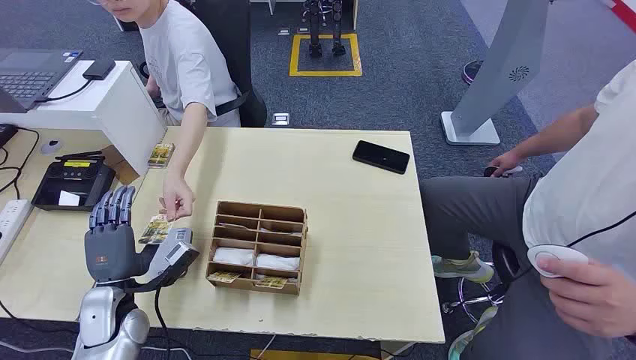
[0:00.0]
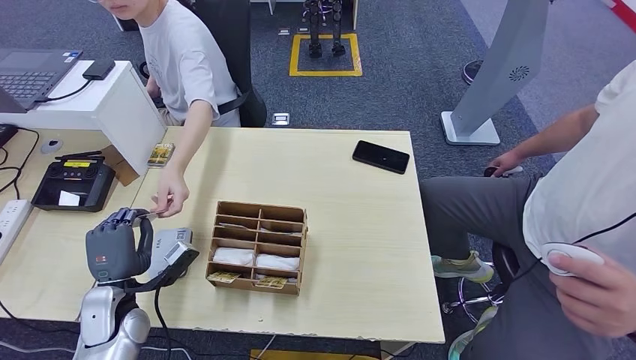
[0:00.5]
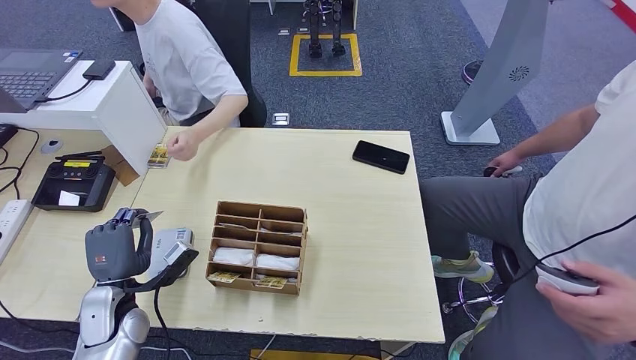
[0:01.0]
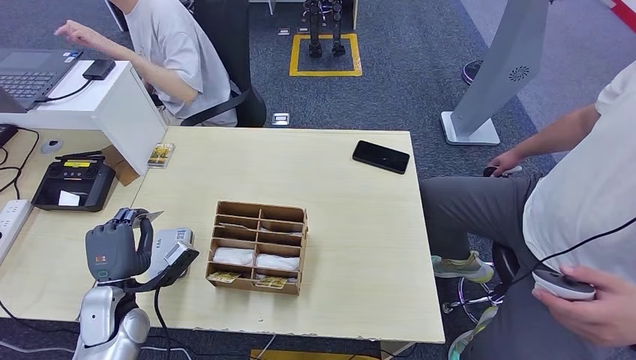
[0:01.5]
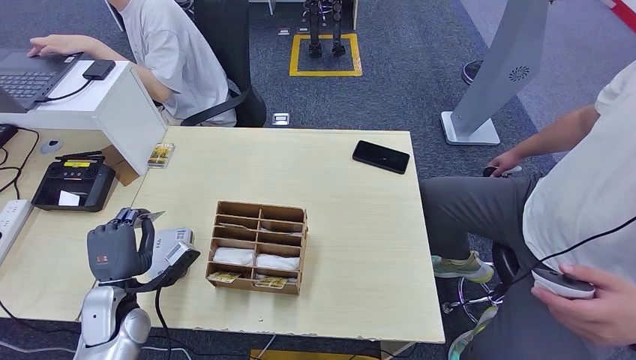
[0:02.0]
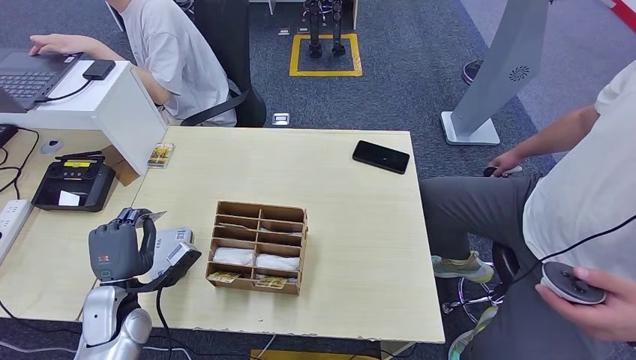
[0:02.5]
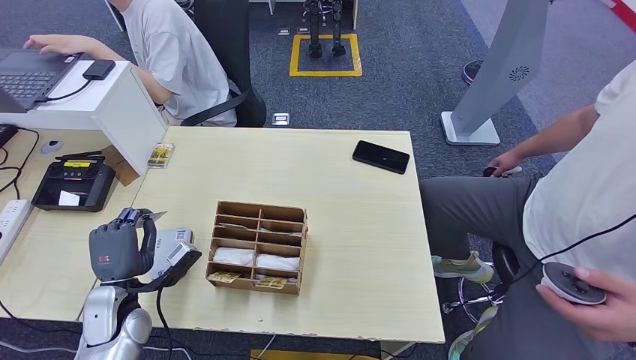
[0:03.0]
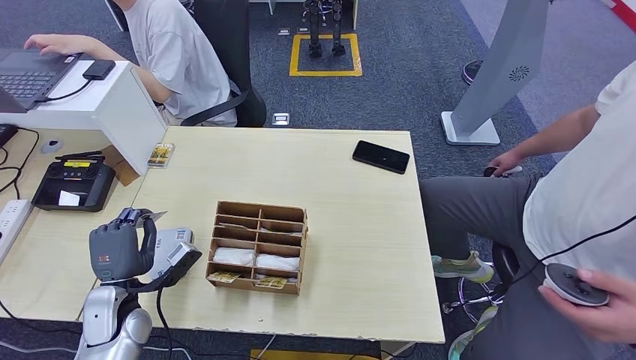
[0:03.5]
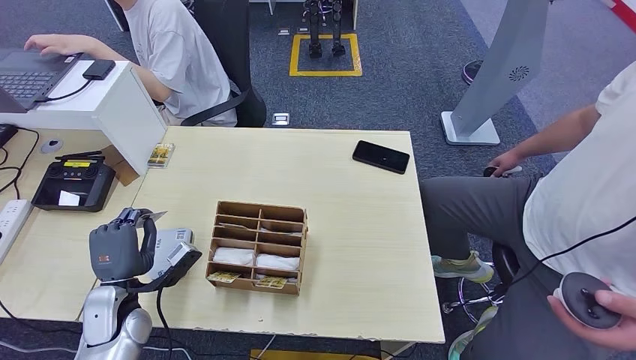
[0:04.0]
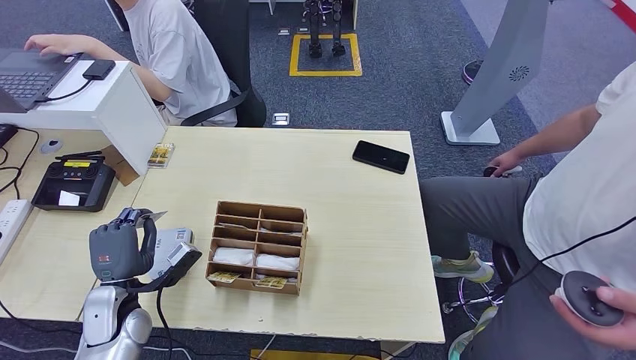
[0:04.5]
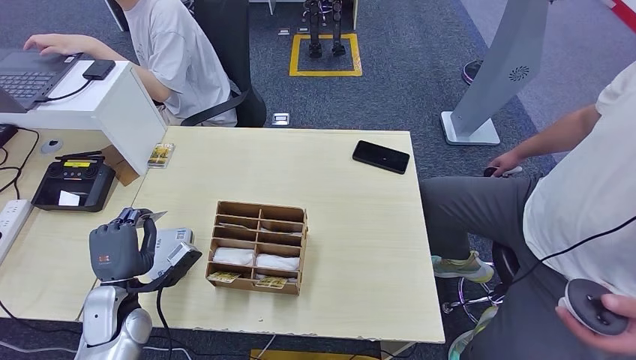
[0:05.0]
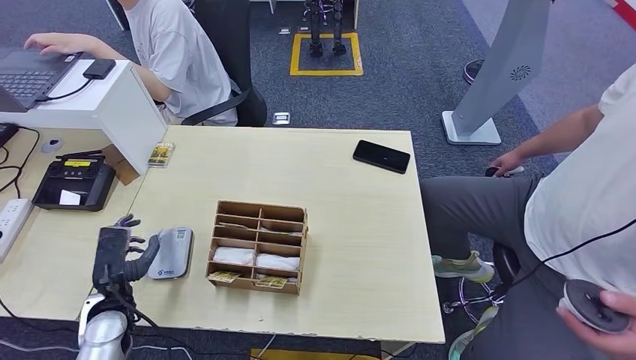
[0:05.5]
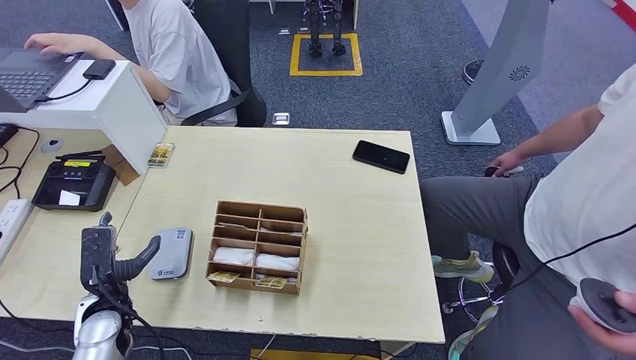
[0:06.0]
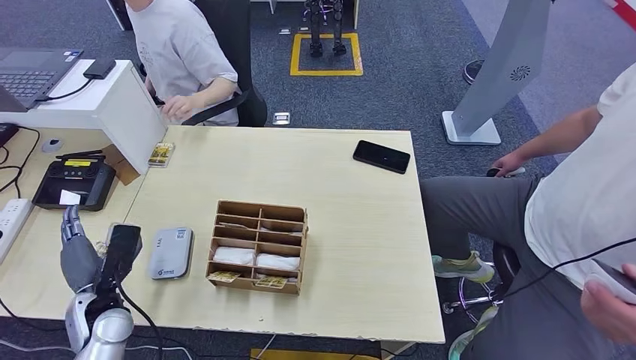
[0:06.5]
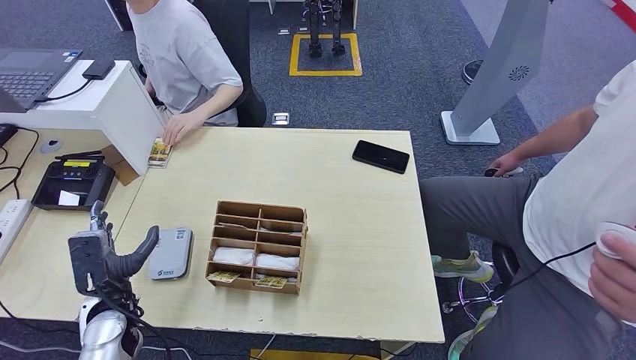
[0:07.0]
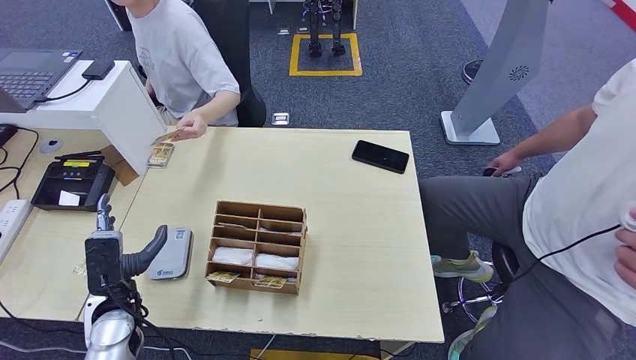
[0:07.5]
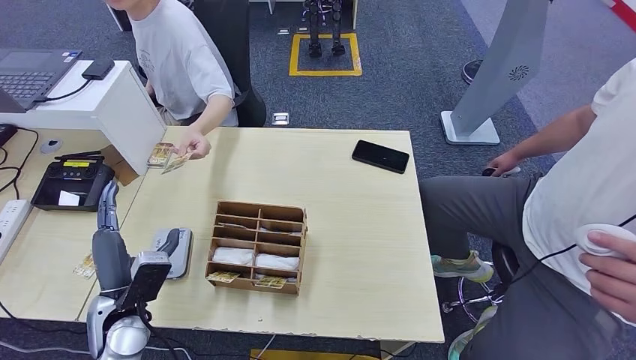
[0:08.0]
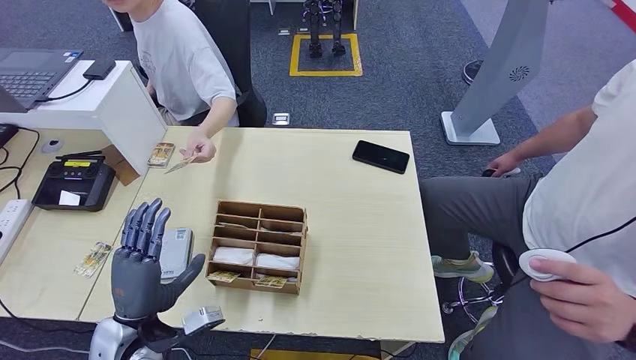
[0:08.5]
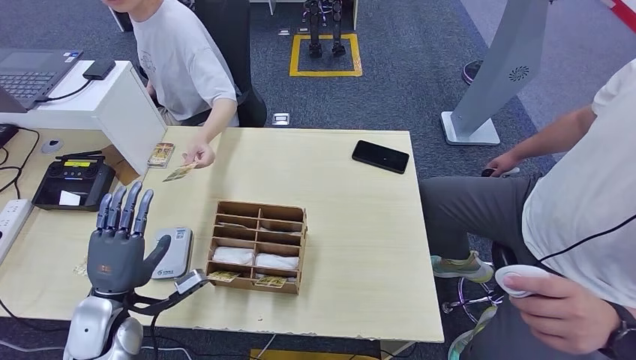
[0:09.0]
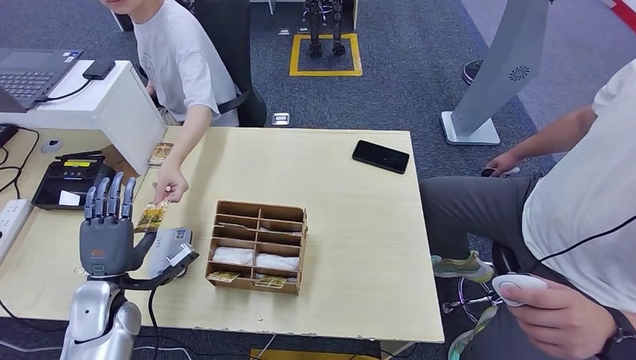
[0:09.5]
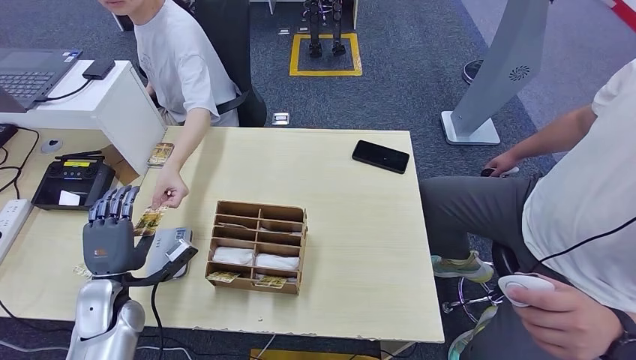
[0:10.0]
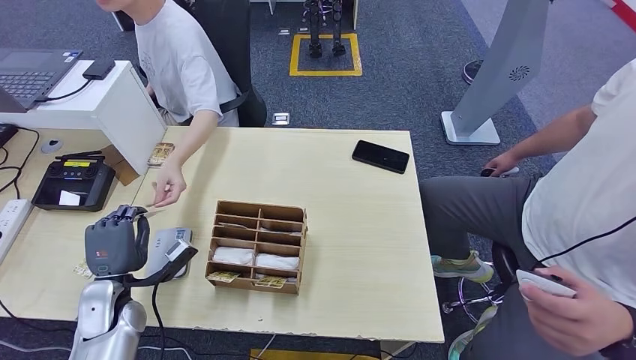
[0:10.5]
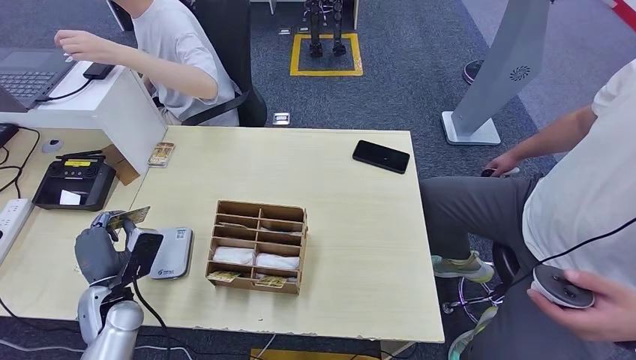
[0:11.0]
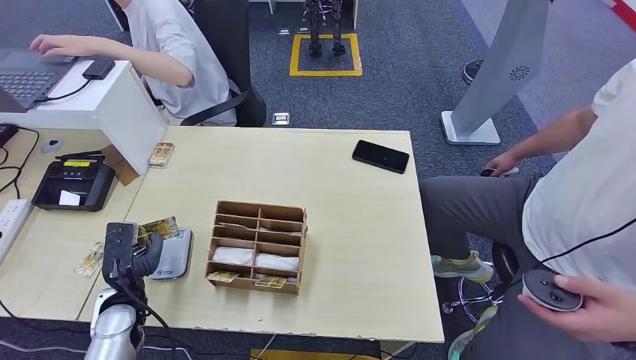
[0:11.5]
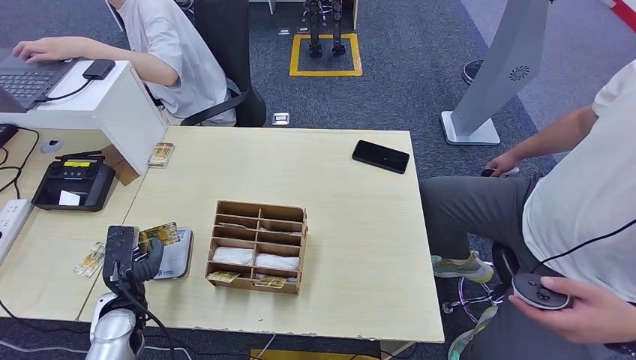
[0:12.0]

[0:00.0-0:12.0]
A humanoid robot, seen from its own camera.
Step, 0:00.0 to 0:01.0: Take the ID card from the person's hand.
0:02.0 to 0:04.0: Neither hand changes place.
0:06.0 to 0:08.0: The left hand heads to the right, covering some 5 cm.
0:08.0 to 0:10.0: The left hand heads to the left, covering some 5 cm.

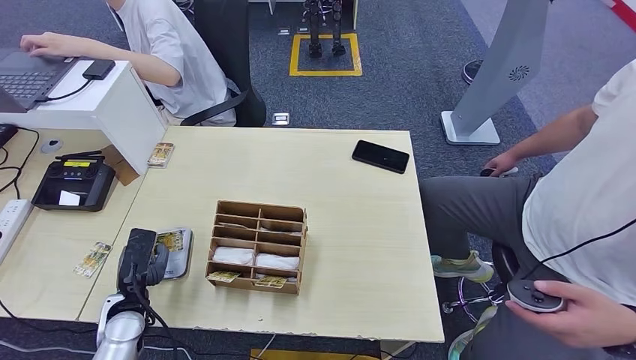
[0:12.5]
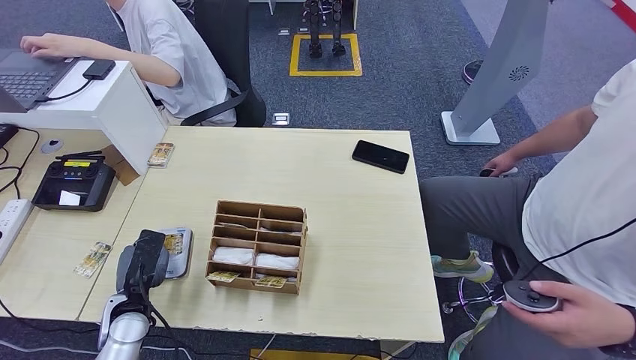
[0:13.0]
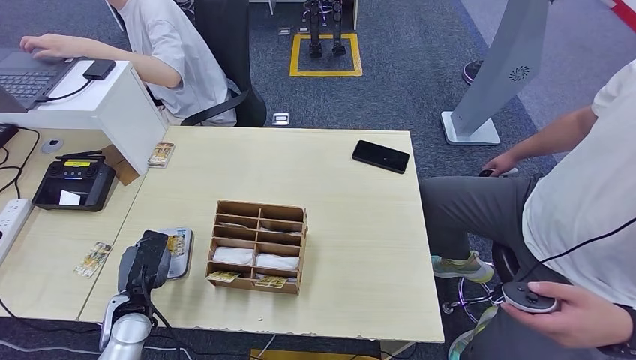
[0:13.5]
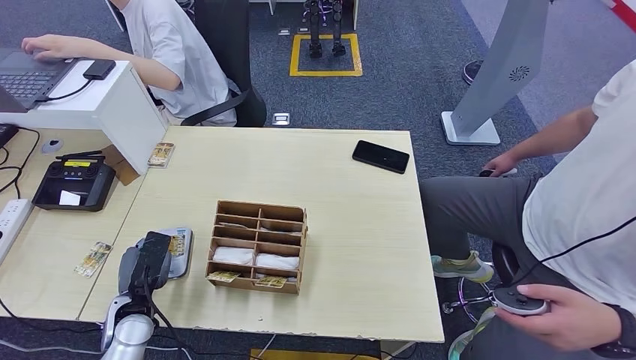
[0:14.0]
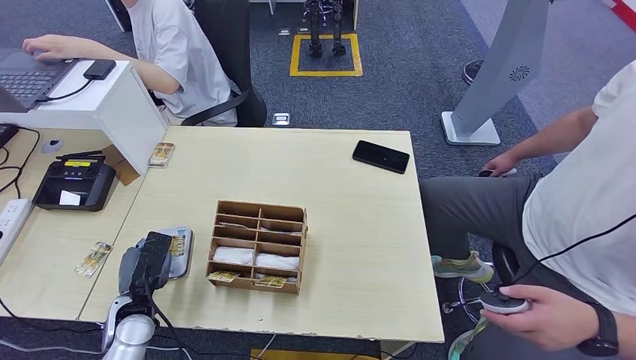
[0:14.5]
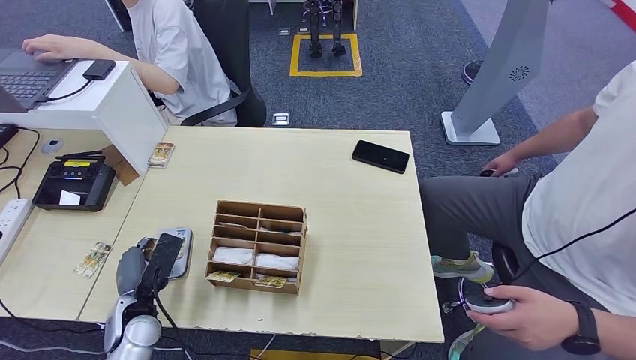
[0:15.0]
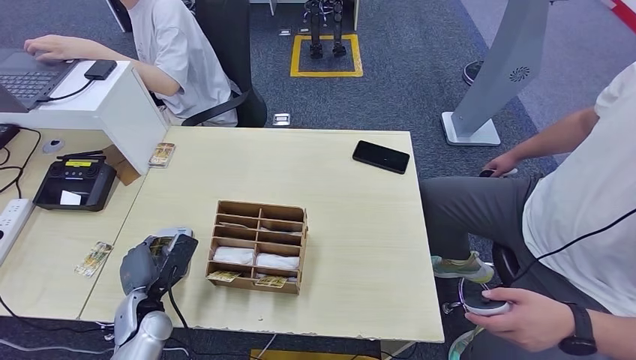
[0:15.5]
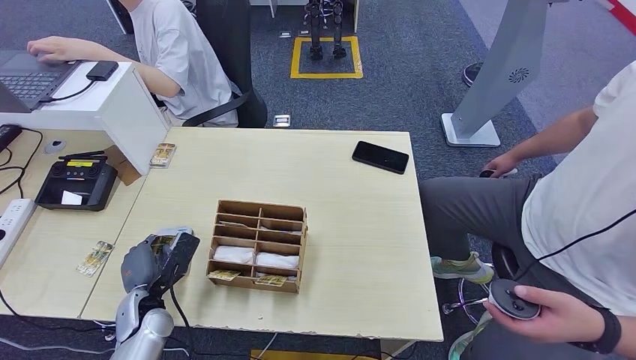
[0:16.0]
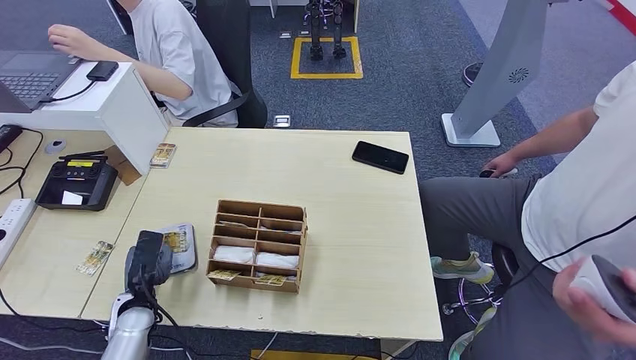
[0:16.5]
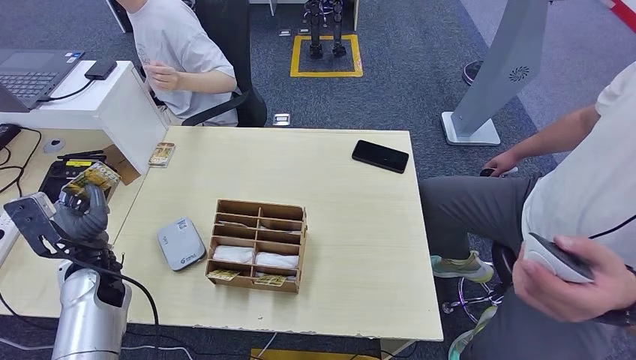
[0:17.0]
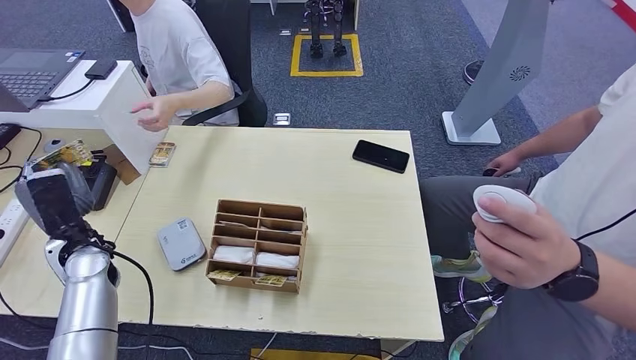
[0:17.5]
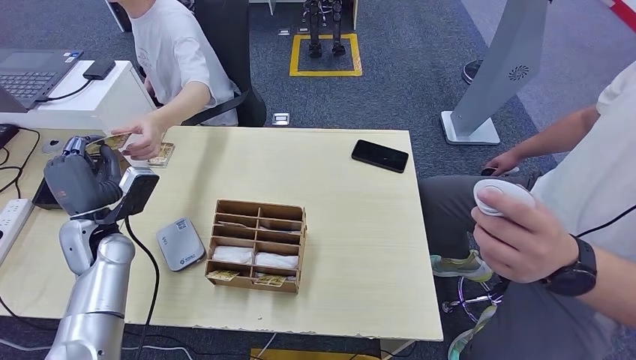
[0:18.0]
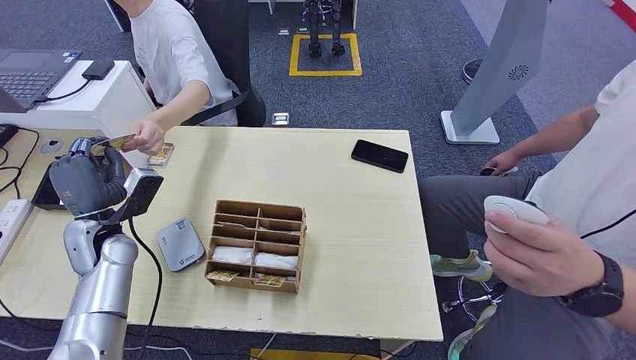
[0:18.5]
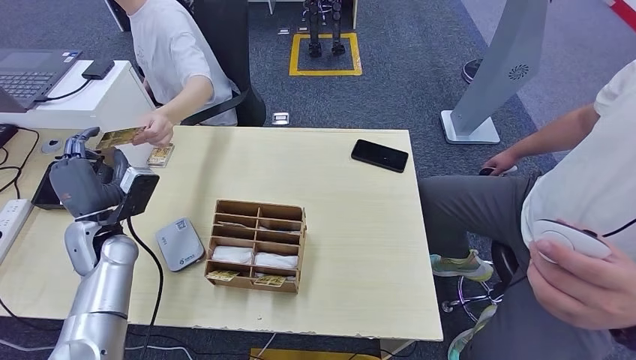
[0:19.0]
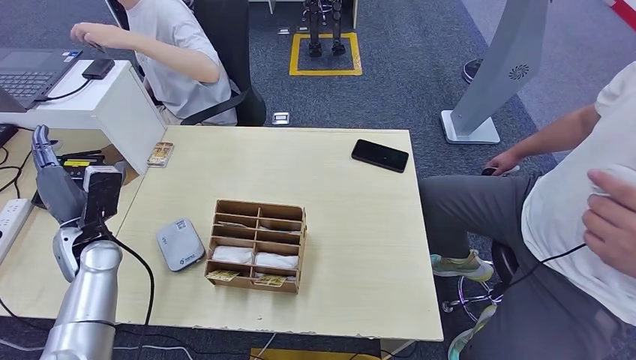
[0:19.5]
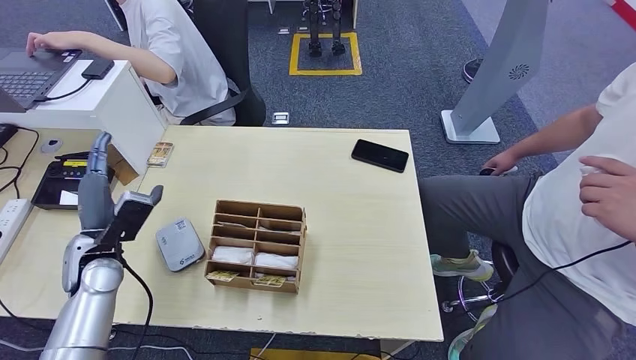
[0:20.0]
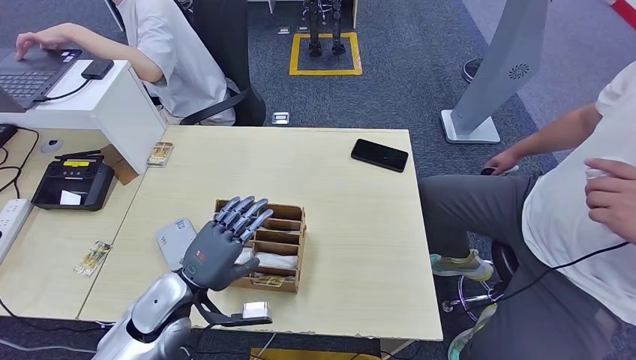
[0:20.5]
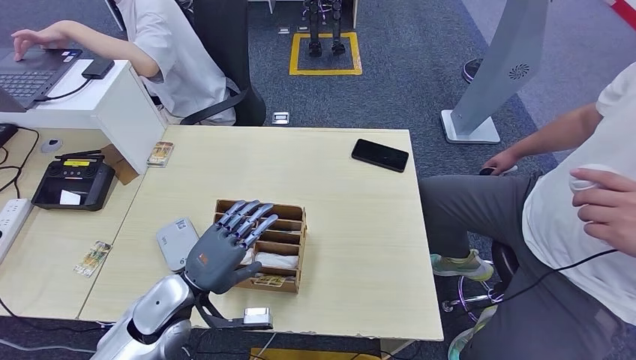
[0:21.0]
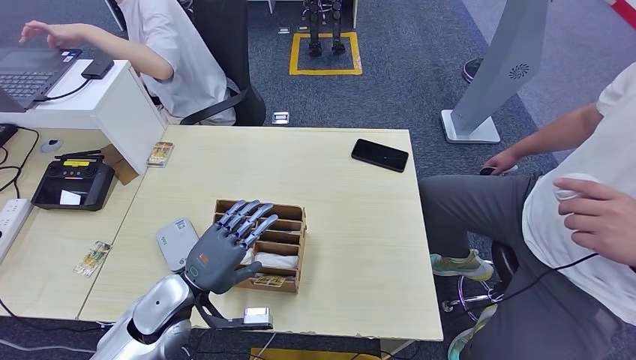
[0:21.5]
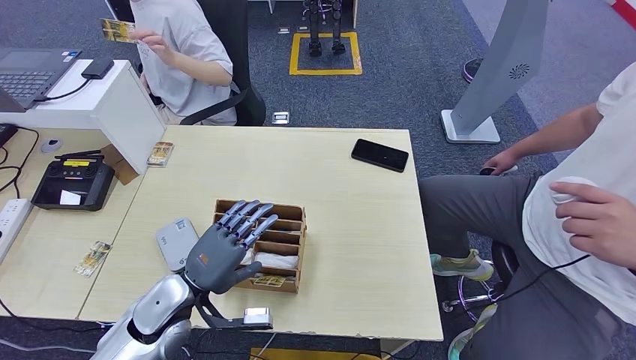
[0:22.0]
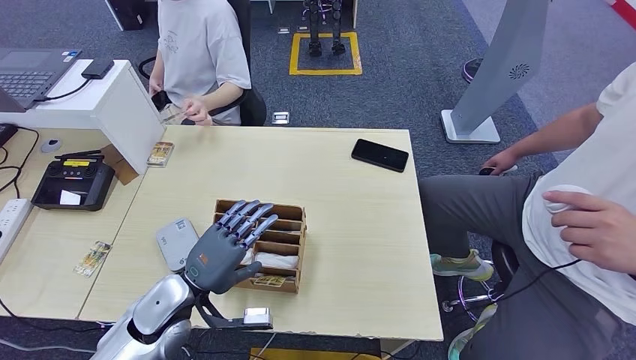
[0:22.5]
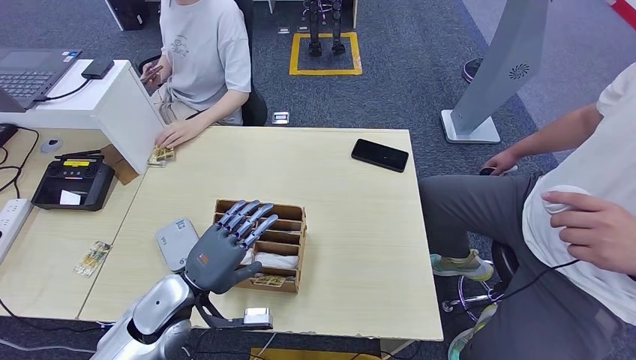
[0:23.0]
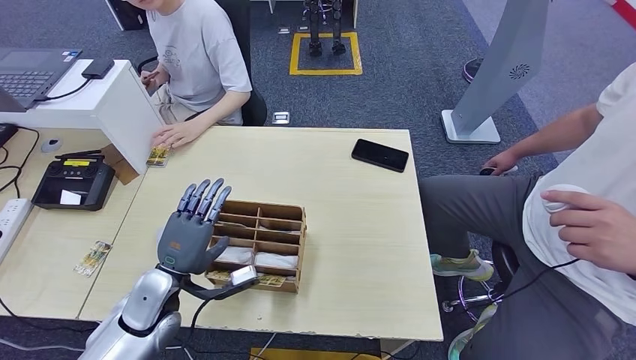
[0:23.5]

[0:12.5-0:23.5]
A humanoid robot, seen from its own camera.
Step, 0:14.0 to 0:18.5: Hand the ID card to the person.
0:12.5 to 0:14.5: There are only small adjustments of the hands.
0:20.0 to 0:21.5: The left hand travels to the right and backward by approximately 15 cm.
